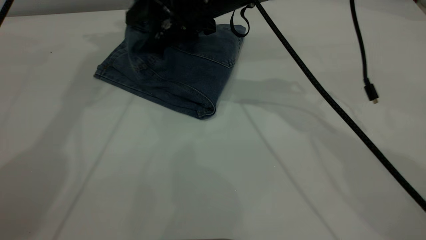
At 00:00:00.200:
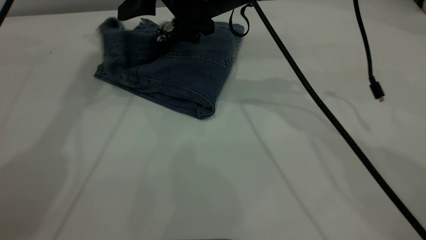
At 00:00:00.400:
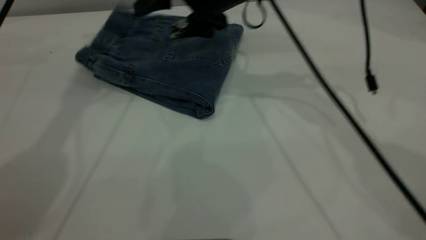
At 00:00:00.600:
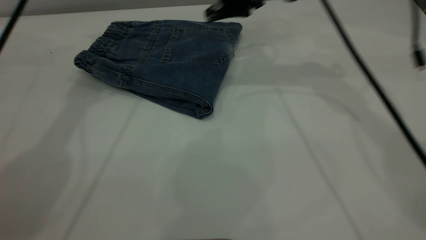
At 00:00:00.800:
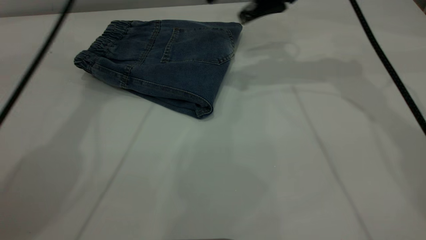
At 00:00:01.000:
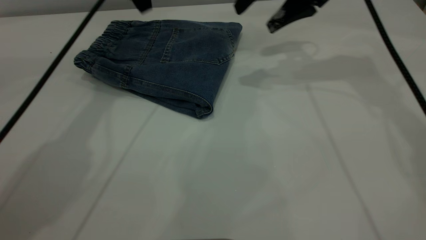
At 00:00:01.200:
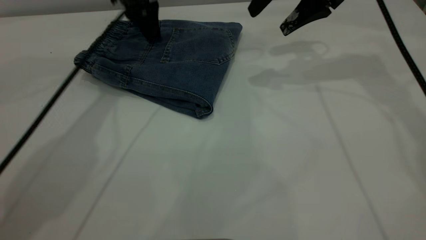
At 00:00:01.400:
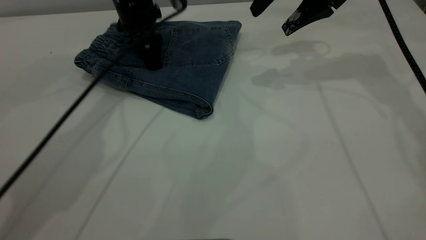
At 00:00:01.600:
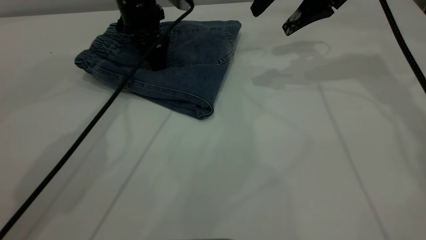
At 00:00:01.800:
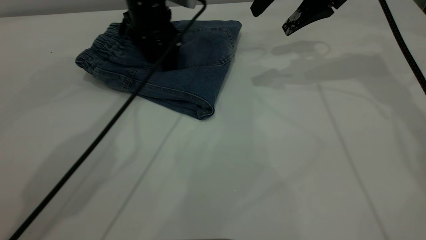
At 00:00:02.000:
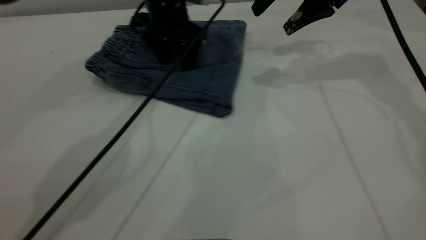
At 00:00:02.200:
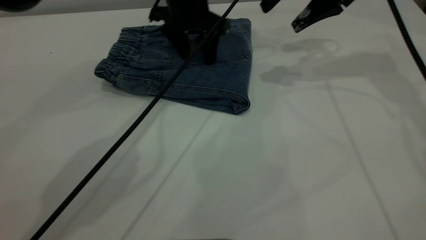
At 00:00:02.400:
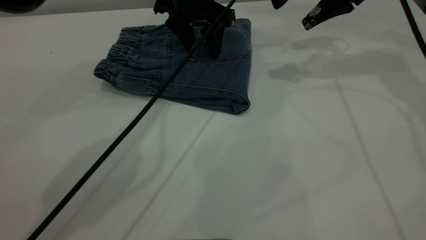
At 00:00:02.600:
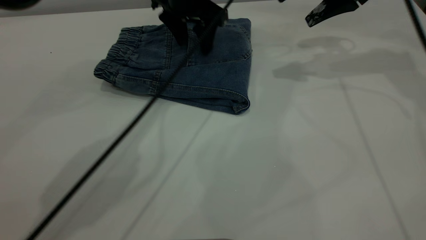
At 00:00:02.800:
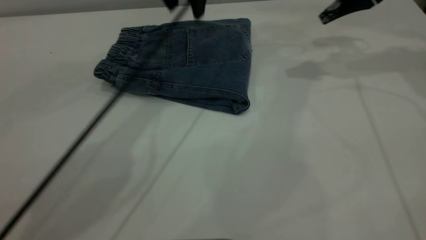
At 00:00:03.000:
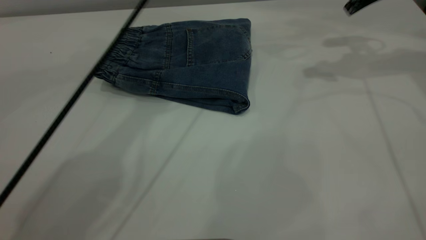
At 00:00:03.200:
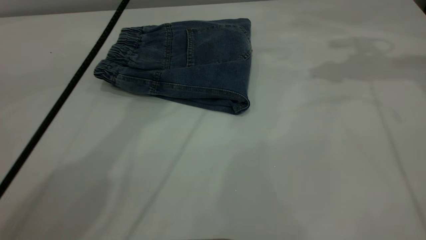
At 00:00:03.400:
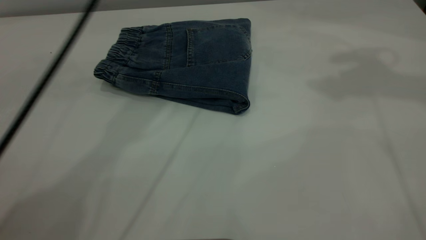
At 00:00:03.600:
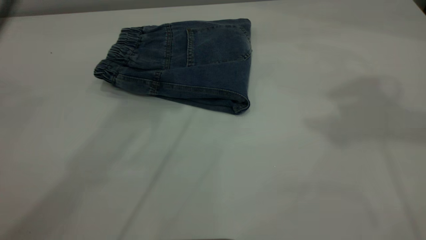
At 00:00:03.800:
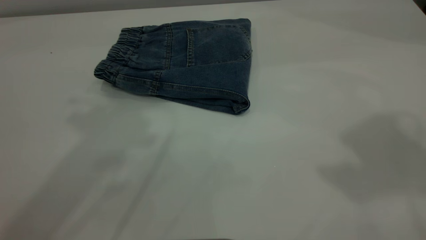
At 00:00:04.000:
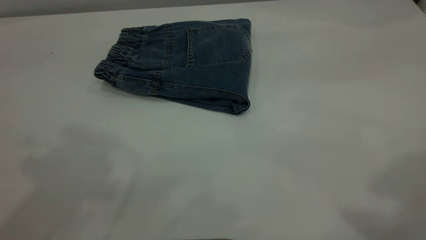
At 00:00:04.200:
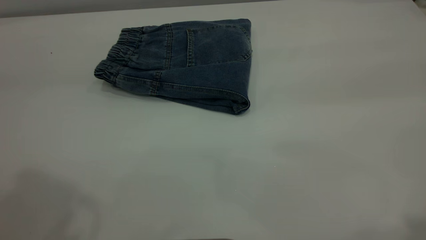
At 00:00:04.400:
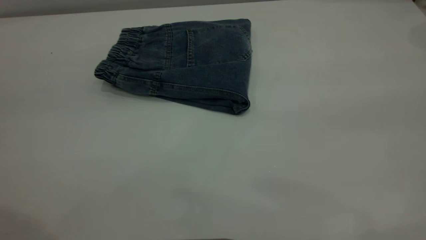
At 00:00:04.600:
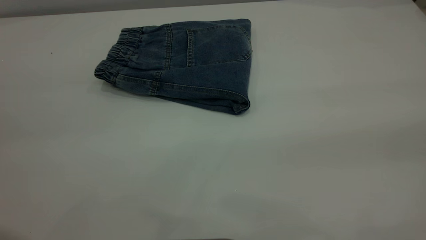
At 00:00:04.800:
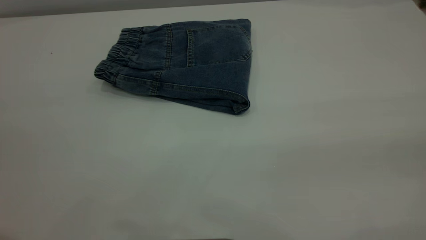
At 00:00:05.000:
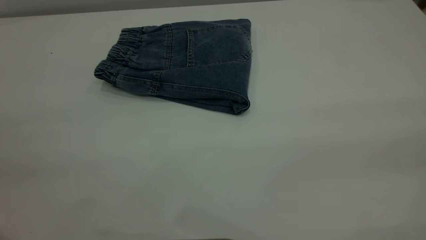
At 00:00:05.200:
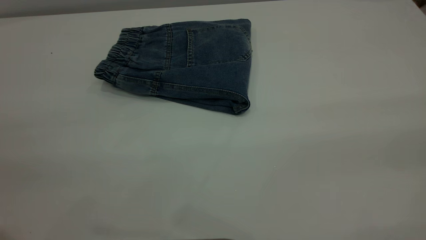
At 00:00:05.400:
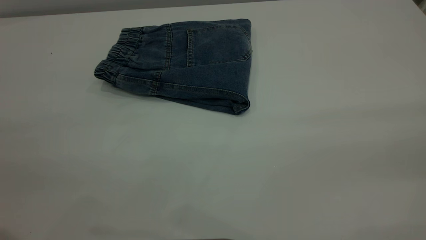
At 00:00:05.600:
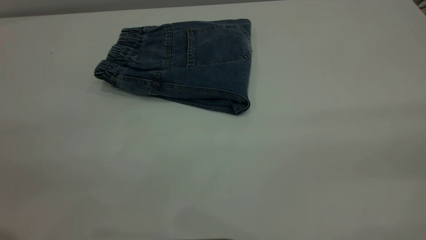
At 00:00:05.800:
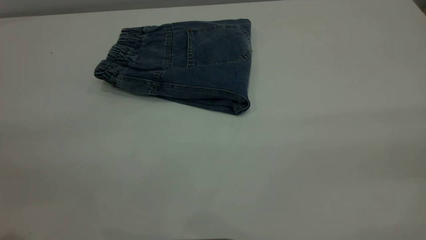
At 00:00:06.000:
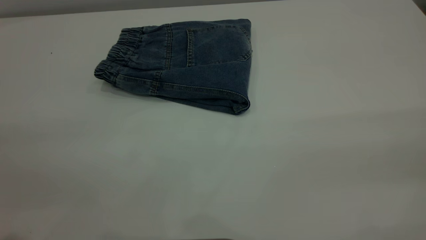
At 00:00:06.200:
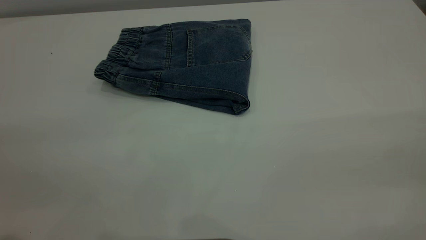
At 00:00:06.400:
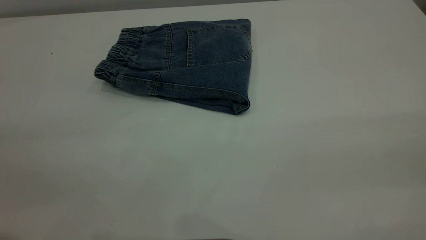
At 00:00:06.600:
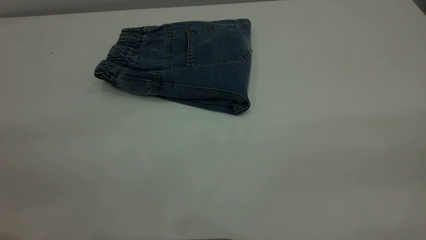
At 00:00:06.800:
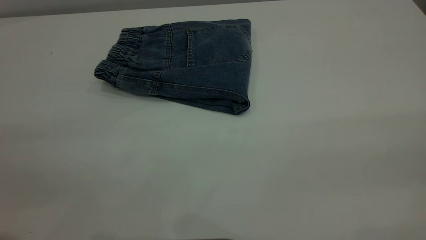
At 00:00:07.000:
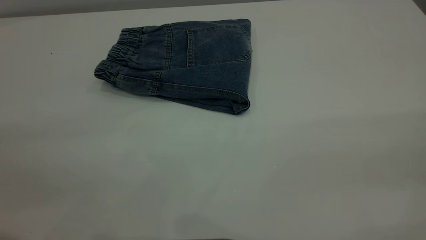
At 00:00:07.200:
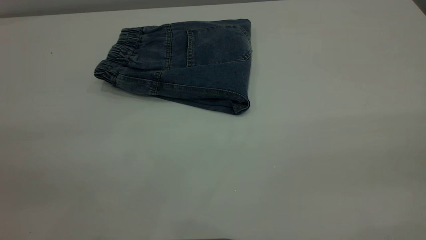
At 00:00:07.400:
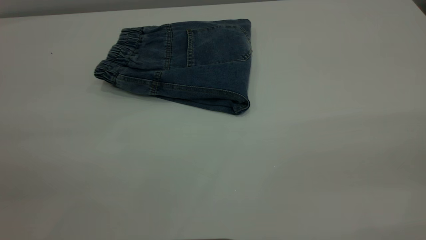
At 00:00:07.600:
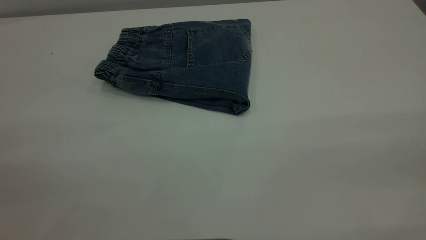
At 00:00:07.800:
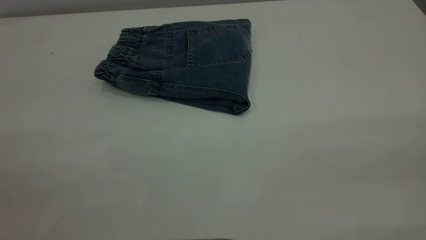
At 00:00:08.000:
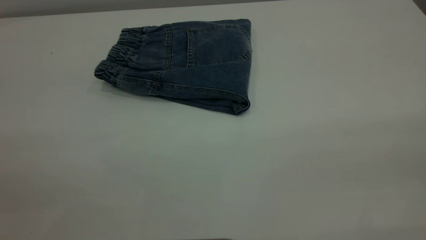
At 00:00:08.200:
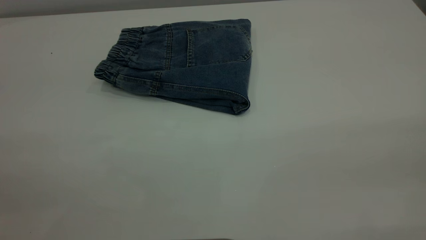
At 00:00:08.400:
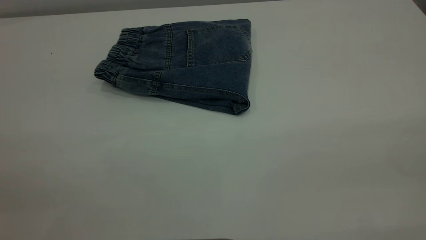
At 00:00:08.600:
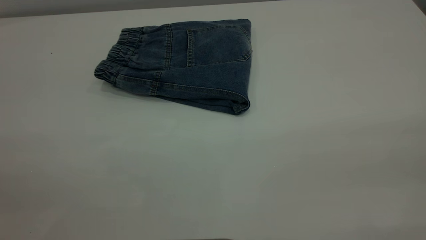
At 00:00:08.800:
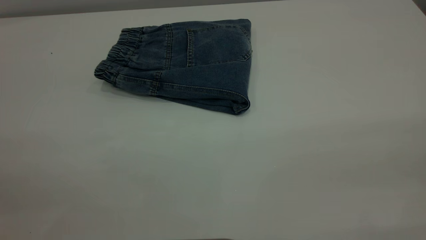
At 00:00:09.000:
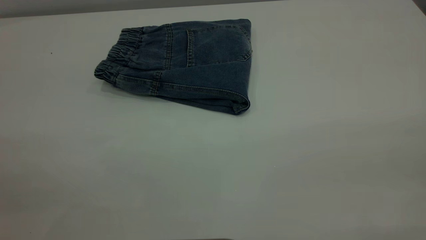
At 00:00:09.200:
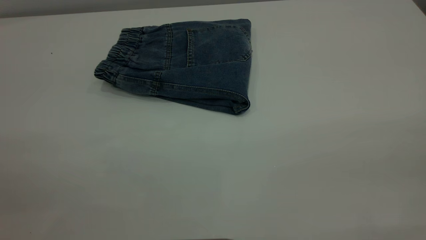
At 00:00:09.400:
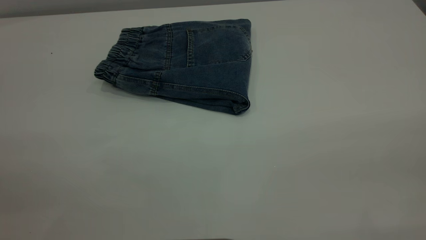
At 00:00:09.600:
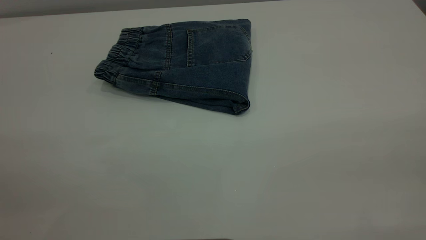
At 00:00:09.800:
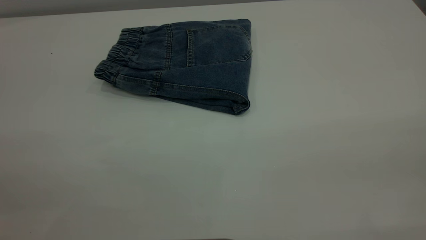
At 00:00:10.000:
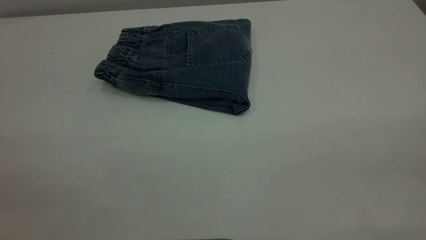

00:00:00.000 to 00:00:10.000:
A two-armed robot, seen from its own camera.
00:00:00.000 to 00:00:01.400: The right gripper moves to the right, about 15 cm, while the left gripper is displaced downward by approximately 25 cm.
00:00:01.400 to 00:00:02.800: The left gripper heads upward and to the right, covering roughly 15 cm, while the right gripper goes some 10 cm to the right.
00:00:02.800 to 00:00:04.200: The left gripper heads backward, upward and to the left, covering about 40 cm. The right gripper moves backward and upward, about 40 cm.
